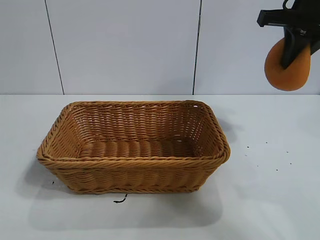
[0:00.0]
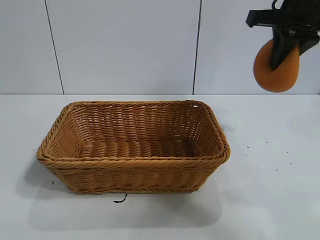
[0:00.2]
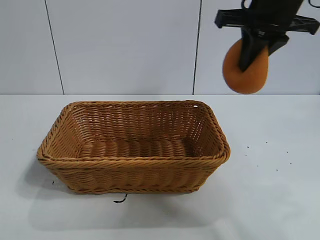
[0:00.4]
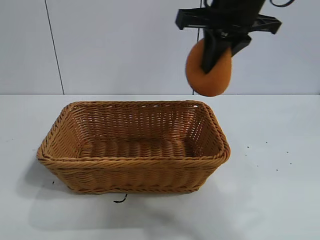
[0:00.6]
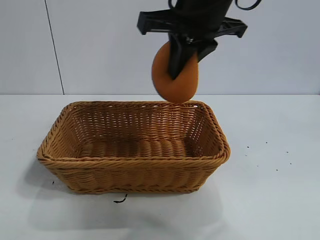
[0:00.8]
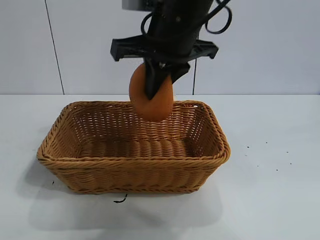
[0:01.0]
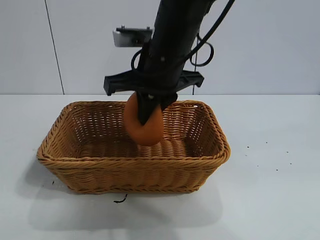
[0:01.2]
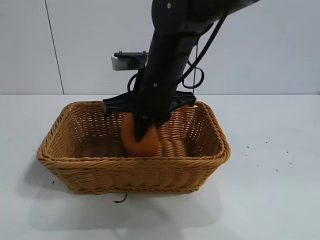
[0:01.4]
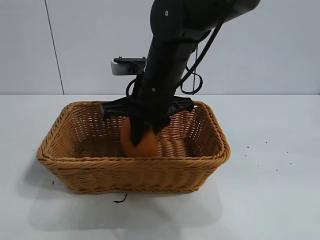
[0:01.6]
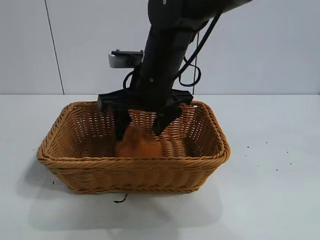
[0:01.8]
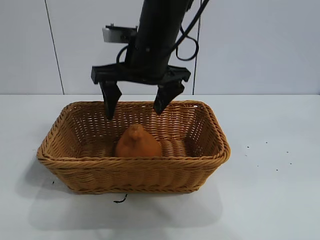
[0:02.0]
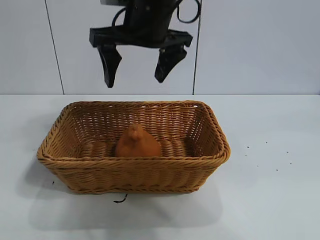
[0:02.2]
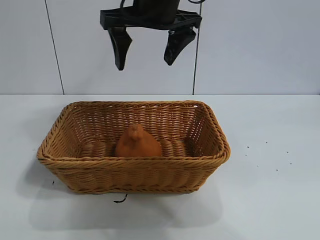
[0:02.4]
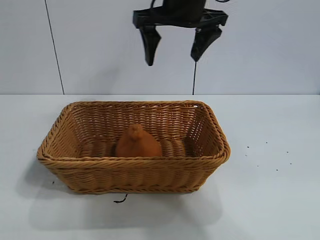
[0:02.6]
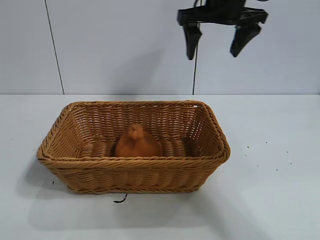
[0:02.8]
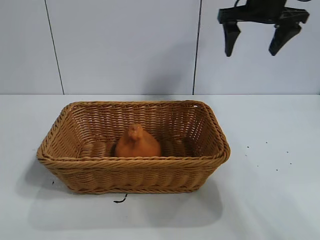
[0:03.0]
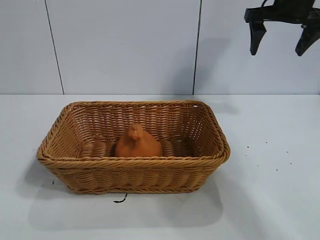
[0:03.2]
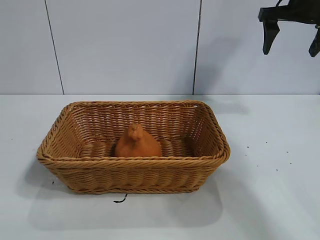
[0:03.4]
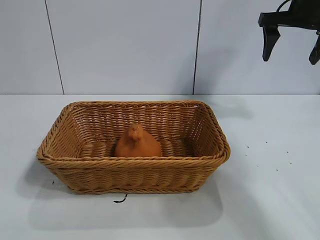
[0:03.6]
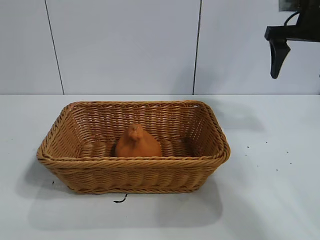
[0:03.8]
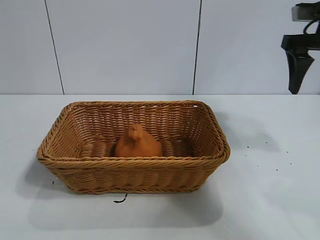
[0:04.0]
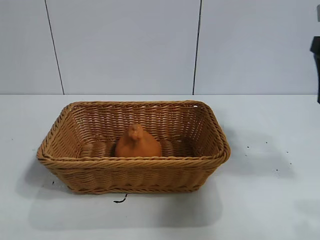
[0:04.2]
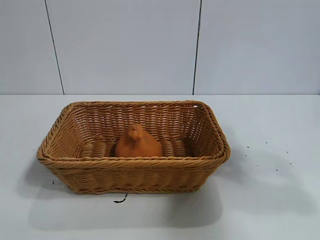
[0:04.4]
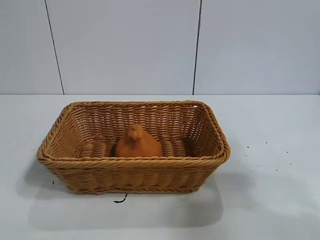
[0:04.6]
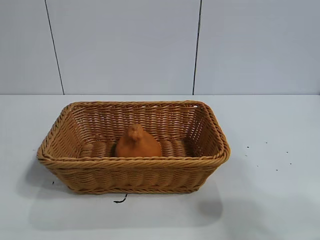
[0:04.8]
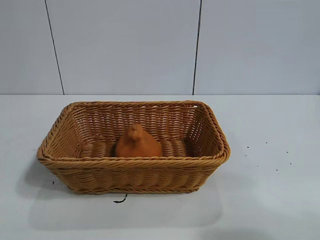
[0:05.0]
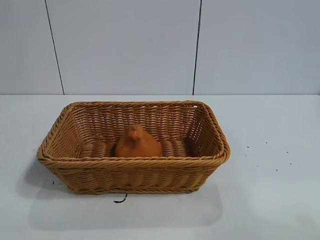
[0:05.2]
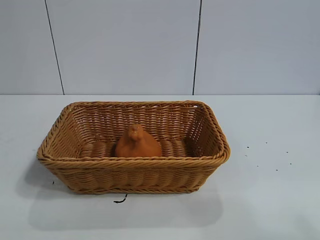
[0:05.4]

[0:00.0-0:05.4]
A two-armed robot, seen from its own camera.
Task of the whole recording: pick up the orange and put it into the basket.
Step, 0:00.0 to 0:01.8: Place the orange in the basket with right gripper.
